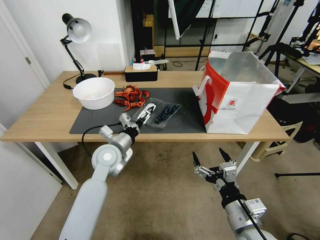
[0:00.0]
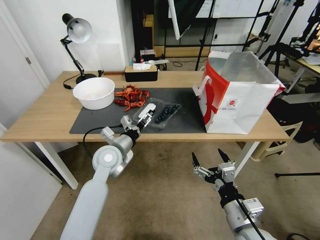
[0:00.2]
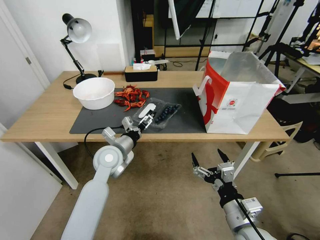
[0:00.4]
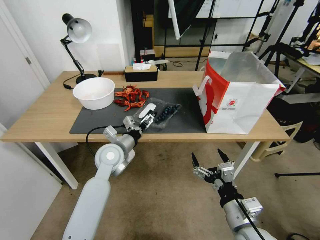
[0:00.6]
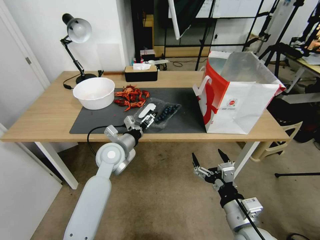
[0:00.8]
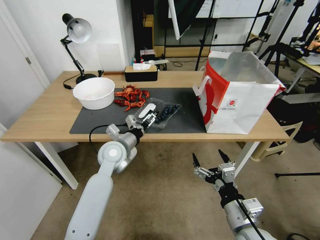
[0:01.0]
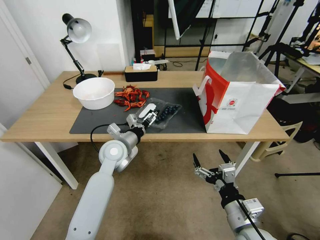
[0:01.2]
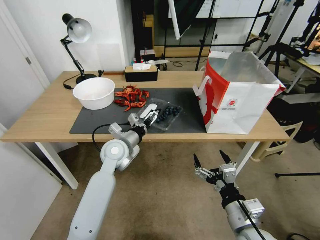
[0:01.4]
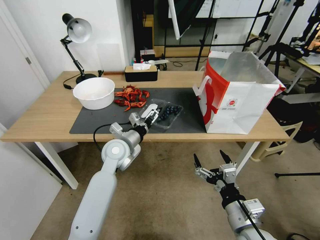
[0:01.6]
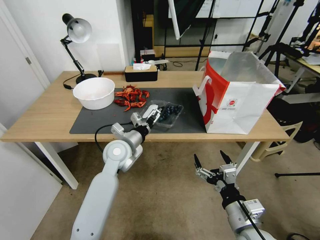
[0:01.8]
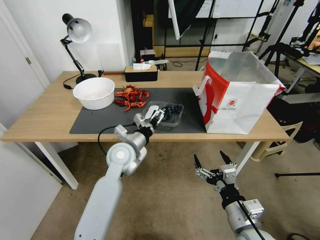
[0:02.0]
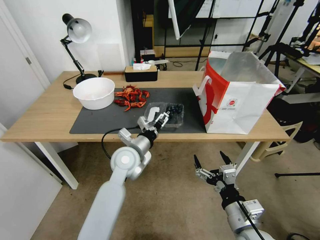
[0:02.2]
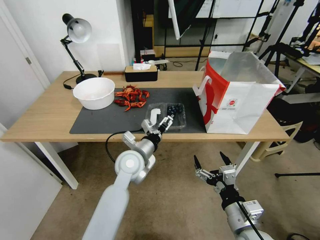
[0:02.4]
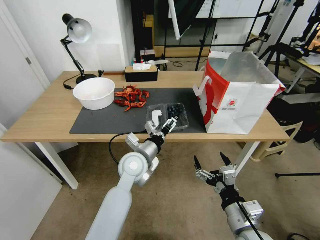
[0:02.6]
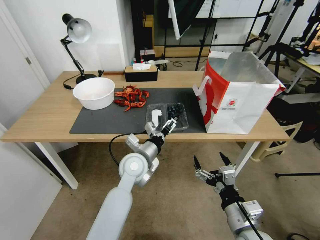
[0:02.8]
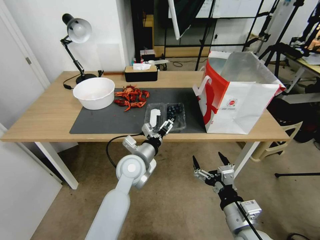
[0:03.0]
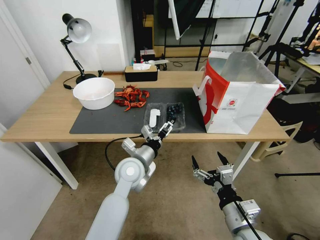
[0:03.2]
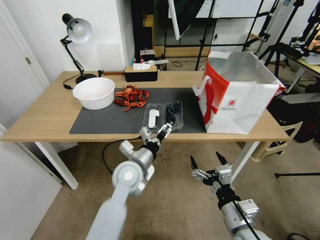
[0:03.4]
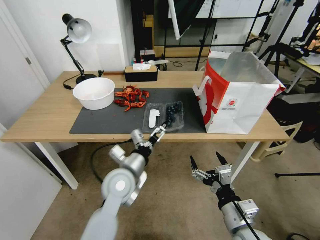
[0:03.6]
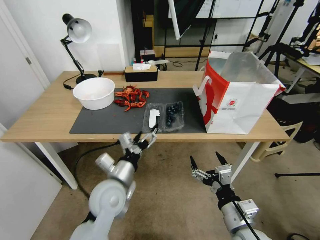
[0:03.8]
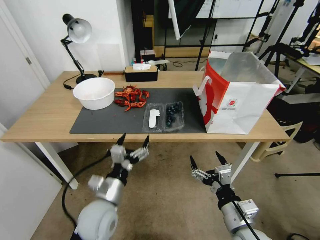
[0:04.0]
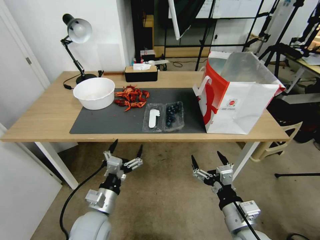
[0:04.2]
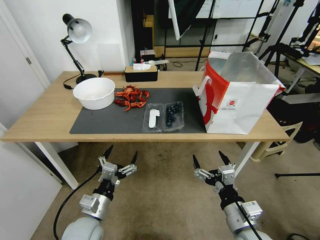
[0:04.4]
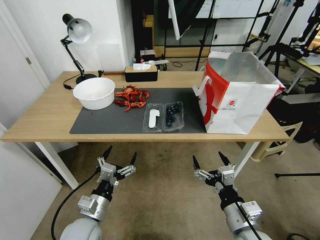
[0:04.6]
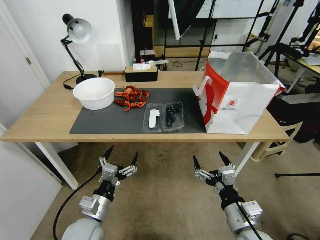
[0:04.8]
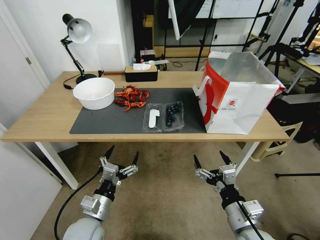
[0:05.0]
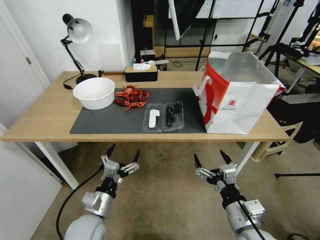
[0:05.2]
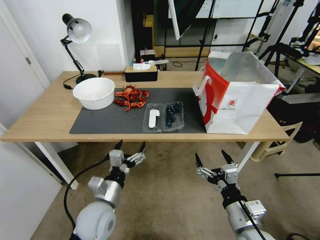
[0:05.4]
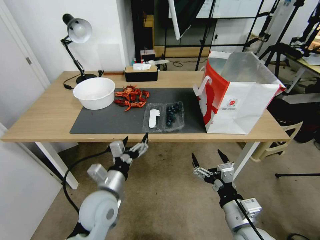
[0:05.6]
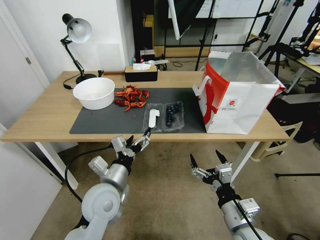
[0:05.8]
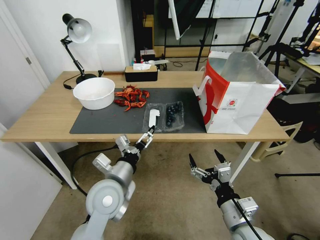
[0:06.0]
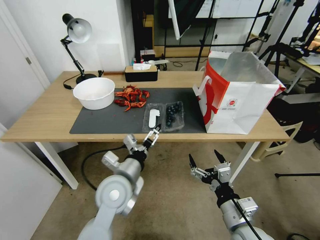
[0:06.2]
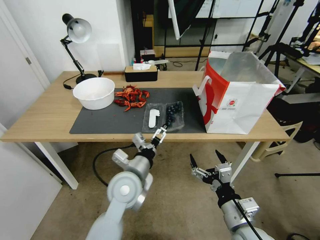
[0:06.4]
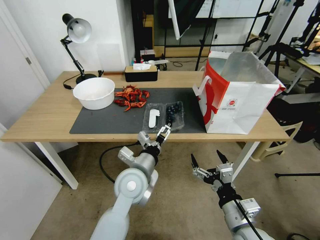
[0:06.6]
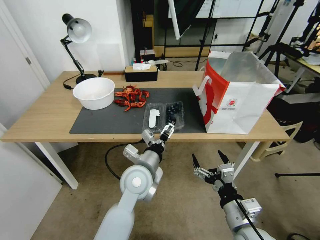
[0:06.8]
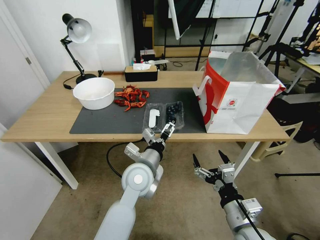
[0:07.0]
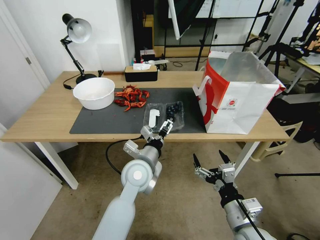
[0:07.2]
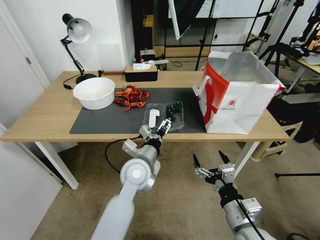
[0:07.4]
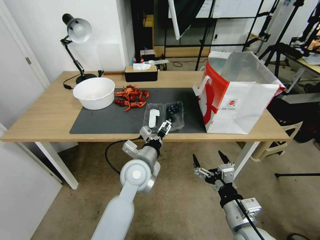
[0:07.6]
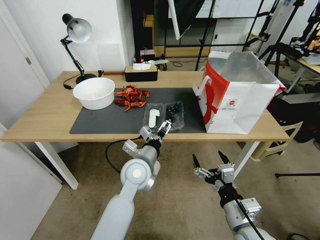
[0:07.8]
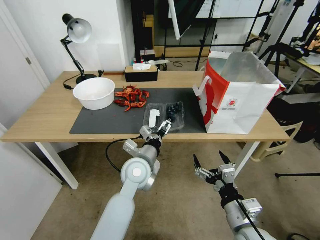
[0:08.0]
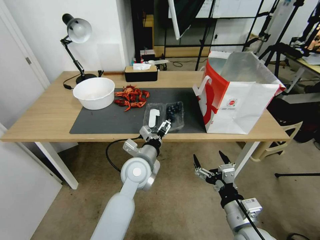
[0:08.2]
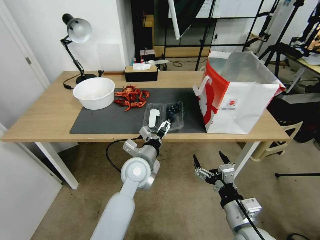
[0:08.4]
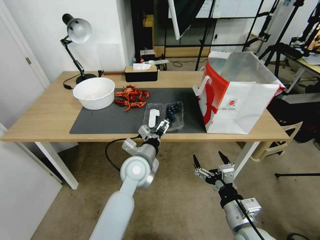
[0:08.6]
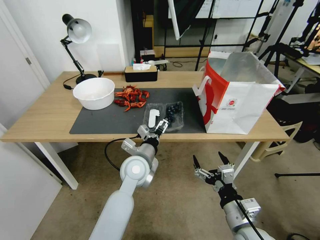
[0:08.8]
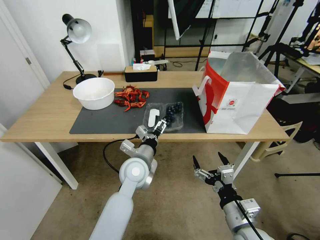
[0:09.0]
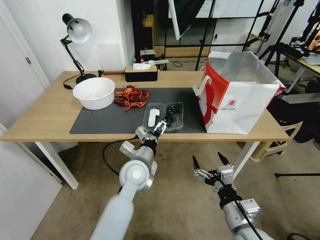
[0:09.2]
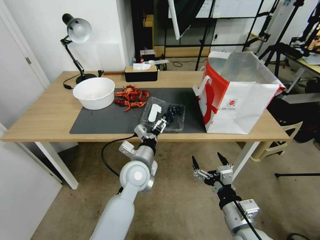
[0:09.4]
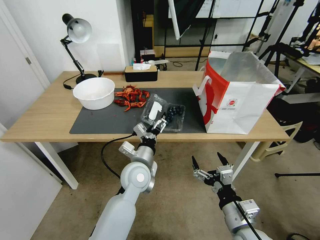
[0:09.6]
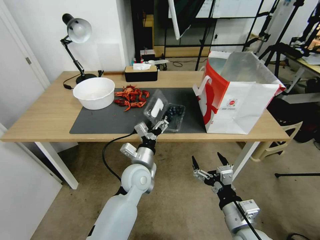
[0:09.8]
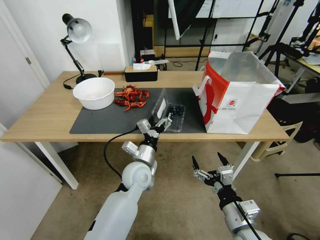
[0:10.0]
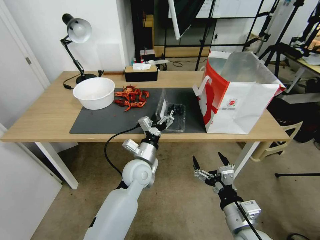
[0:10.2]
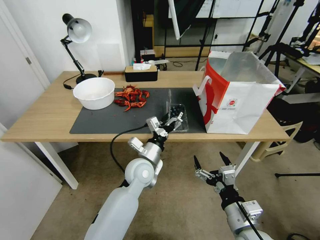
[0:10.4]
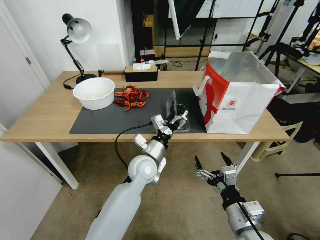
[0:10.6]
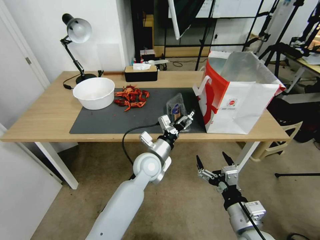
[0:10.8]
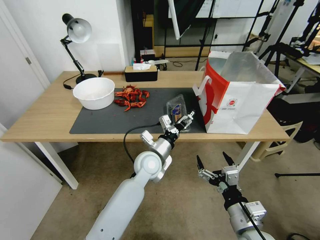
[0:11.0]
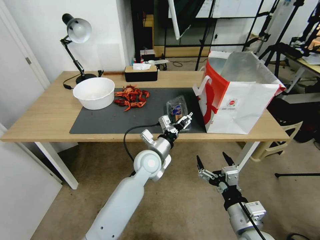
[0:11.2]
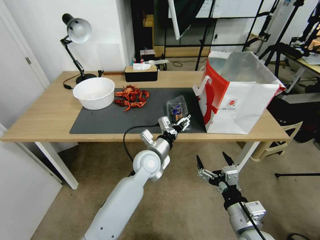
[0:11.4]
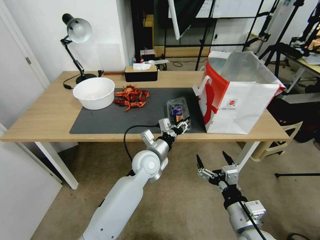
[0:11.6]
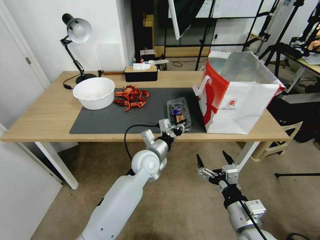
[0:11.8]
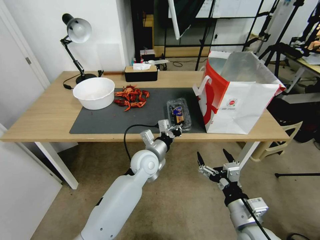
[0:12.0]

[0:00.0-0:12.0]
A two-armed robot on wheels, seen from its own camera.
Task of the whole recording: Close the takeout container lid, then place the container into the takeout bag.
0:00.0 to 0:01.6: The grippers move only a little.
0:01.6 to 0:03.0: The left gripper heads to the right and backward, covering approximately 10 cm.
0:03.0 to 0:04.4: The left gripper is displaced backward, to the left and downward by roughly 20 cm.
0:04.4 to 0:06.0: The left gripper heads upward, forward and to the right, covering approximately 15 cm.
0:06.0 to 0:07.6: The left gripper goes approximately 10 cm to the right and forward.
0:07.6 to 0:09.0: There are only small adjustments of the grippers.
0:10.4 to 0:12.0: The left gripper closes its fingers.

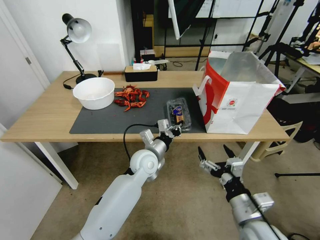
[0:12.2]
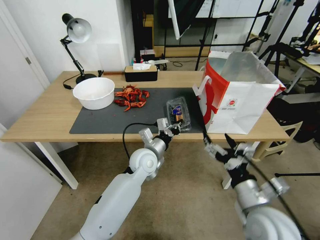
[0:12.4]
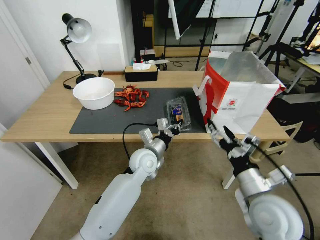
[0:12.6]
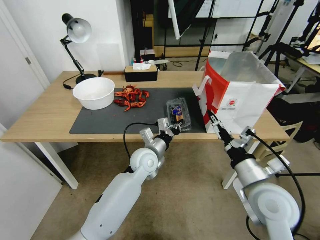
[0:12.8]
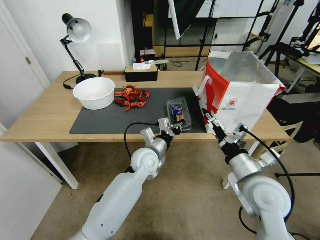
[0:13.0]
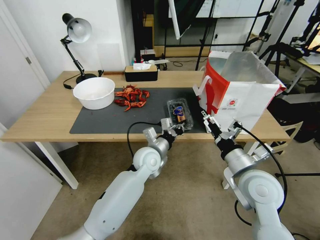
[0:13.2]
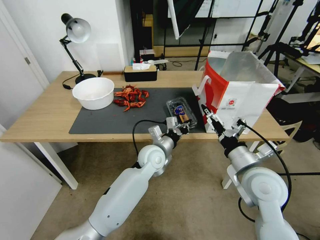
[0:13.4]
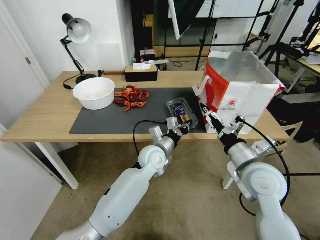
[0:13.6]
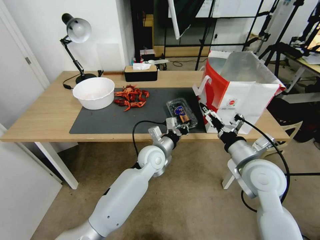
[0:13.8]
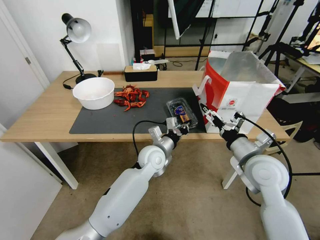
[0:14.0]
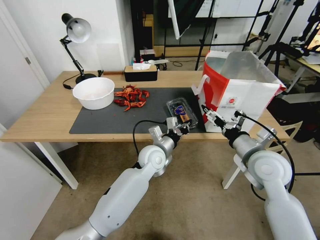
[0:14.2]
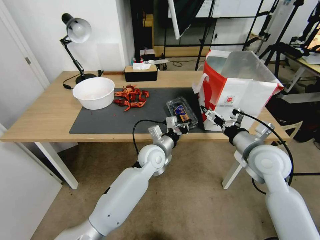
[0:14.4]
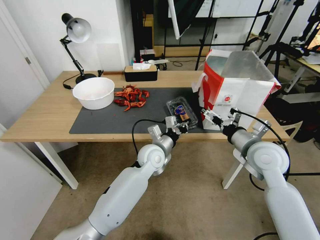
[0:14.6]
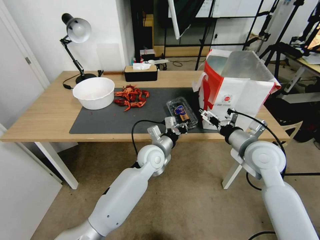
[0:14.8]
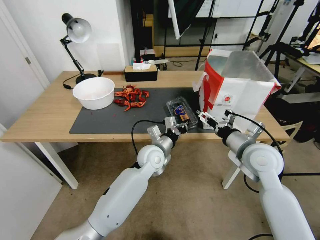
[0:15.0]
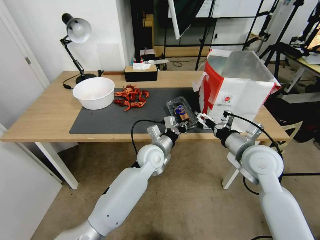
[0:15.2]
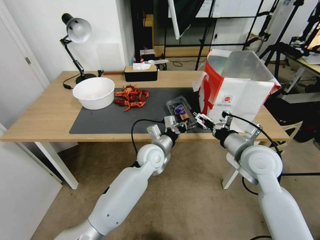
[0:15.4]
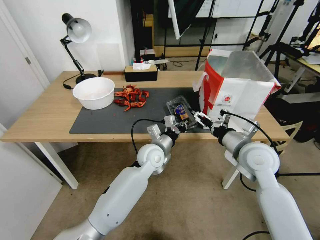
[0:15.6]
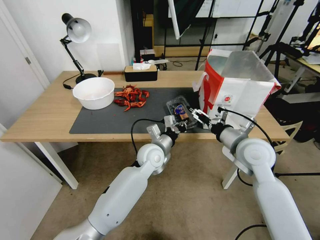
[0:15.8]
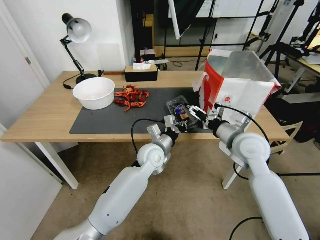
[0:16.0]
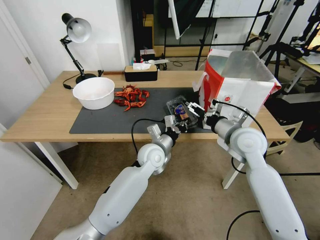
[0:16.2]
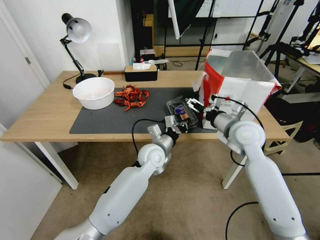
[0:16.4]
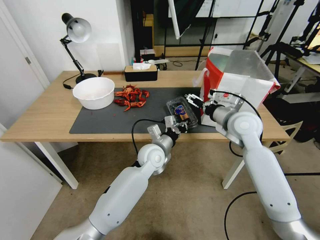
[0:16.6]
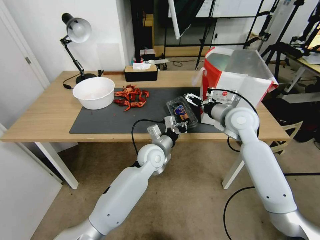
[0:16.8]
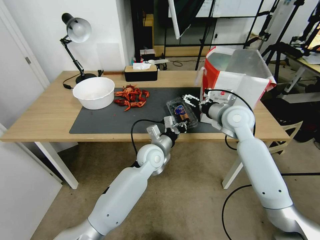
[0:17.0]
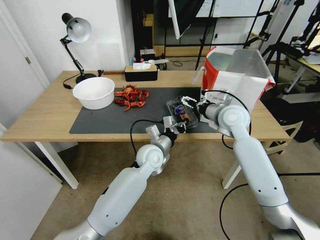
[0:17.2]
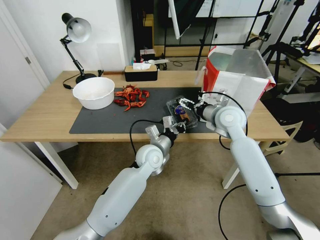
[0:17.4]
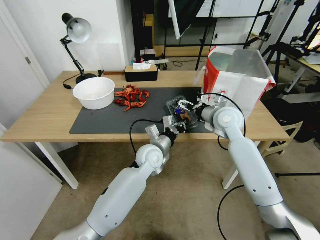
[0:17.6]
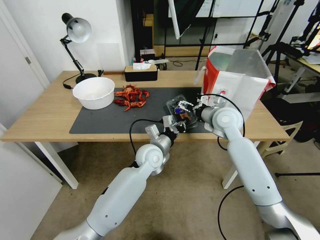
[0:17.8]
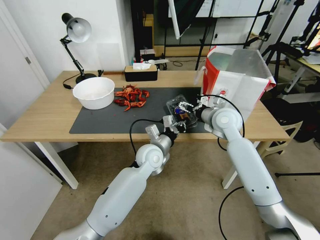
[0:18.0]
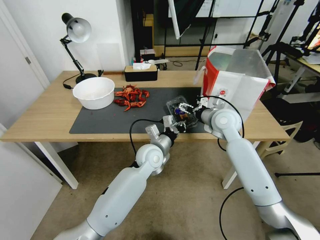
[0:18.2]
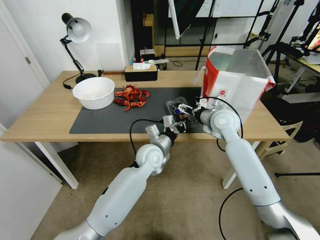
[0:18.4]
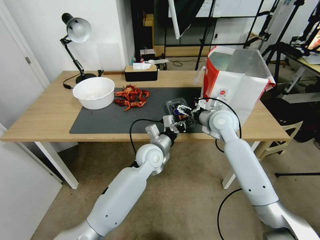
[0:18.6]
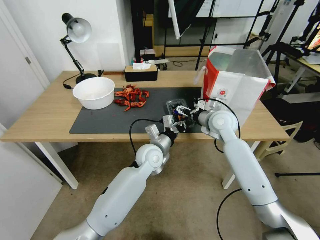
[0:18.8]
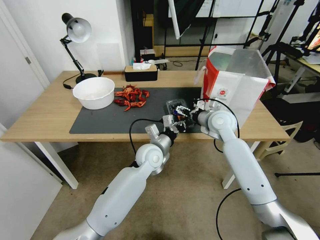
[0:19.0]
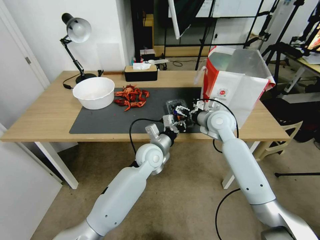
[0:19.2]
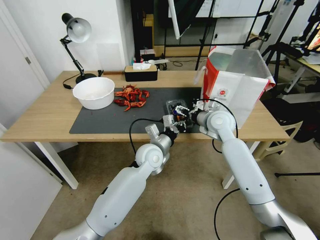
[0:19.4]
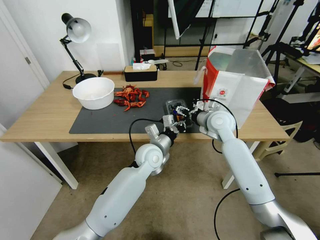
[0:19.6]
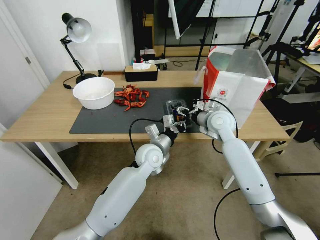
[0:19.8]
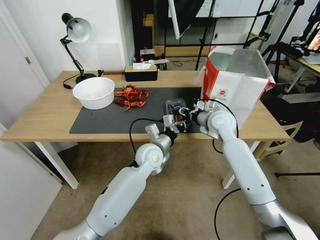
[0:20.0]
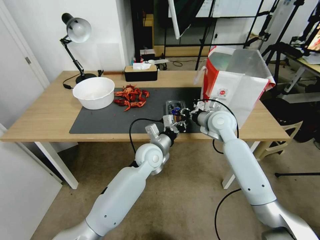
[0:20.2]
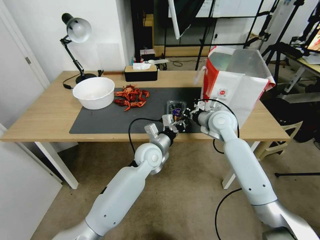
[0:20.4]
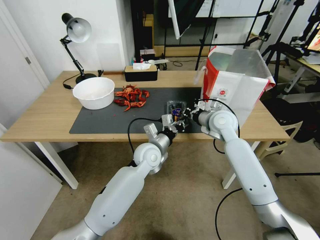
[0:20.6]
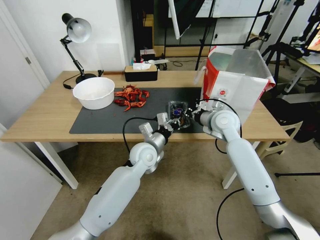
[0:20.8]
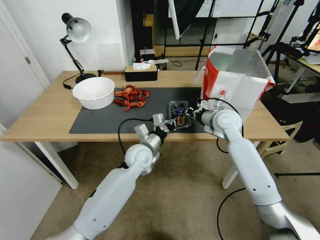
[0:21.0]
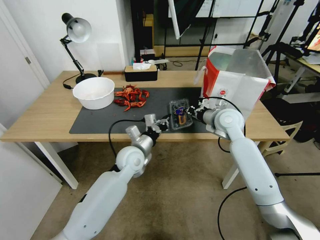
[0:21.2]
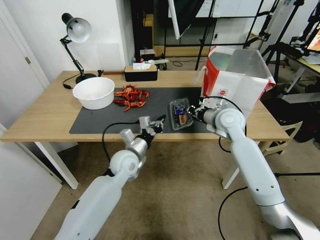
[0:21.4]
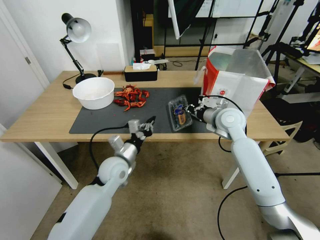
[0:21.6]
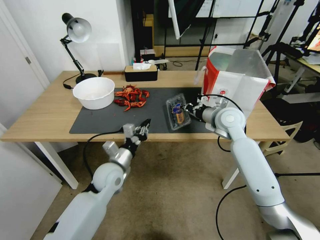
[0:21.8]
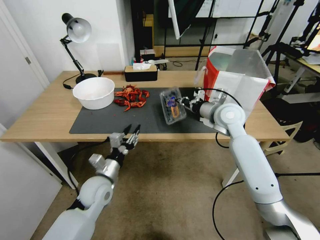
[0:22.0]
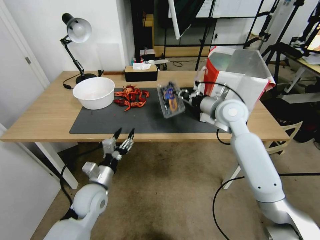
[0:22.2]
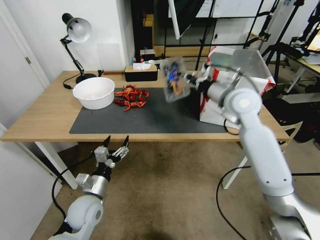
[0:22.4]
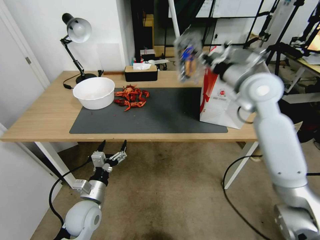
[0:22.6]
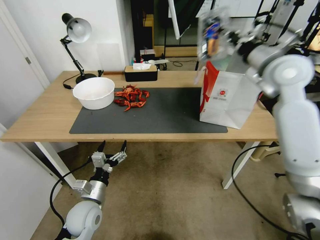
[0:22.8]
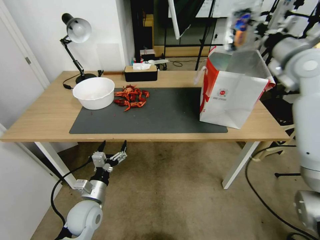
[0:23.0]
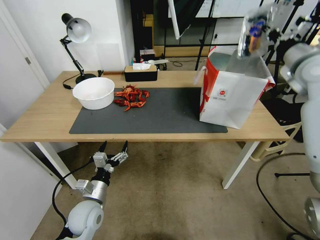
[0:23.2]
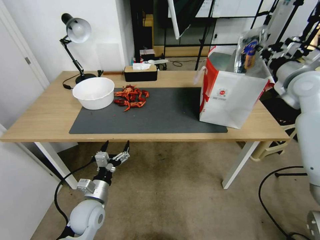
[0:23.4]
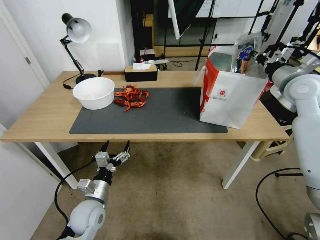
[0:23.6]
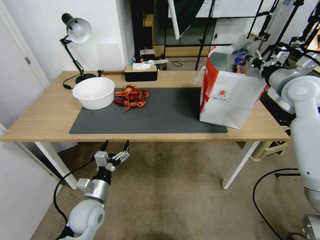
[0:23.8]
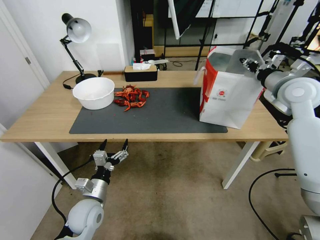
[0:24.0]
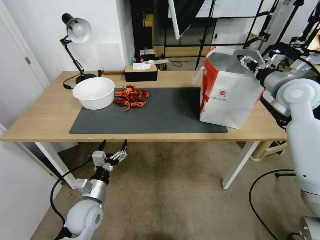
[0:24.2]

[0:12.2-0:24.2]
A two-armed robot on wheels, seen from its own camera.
Task of the whole recording: Close the takeout container lid, then place the container into the takeout bag.
0:12.2 to 0:13.8: The right gripper goes roughly 15 cm forward and upward.
0:13.8 to 0:15.2: The grippers make only small movements.
0:15.2 to 0:16.6: The right gripper travels forward by some 10 cm.
0:16.6 to 0:18.2: The right gripper moves about 5 cm.
0:18.2 to 0:19.8: The grippers move only a little.
0:19.8 to 0:21.2: The left gripper is displaced to the left by approximately 5 cm; the right gripper closes its fingers.
0:21.2 to 0:22.6: The right gripper is displaced upward by some 15 cm. The left gripper is displaced backward, to the left and downward by some 20 cm, and opens.
0:22.6 to 0:24.2: The right gripper goes some 10 cm to the right, and opens.
